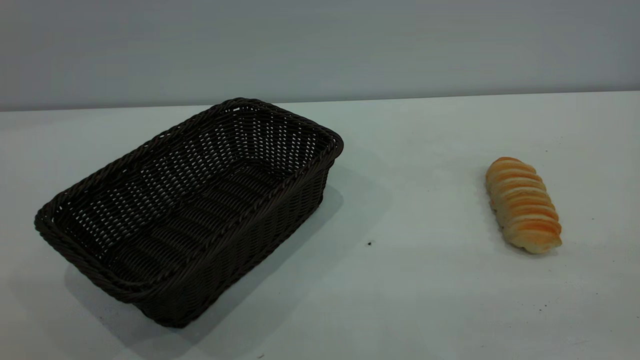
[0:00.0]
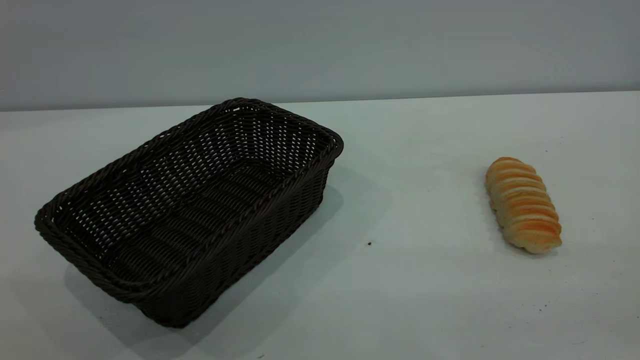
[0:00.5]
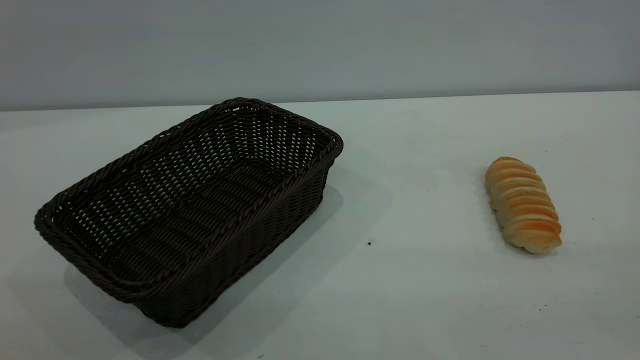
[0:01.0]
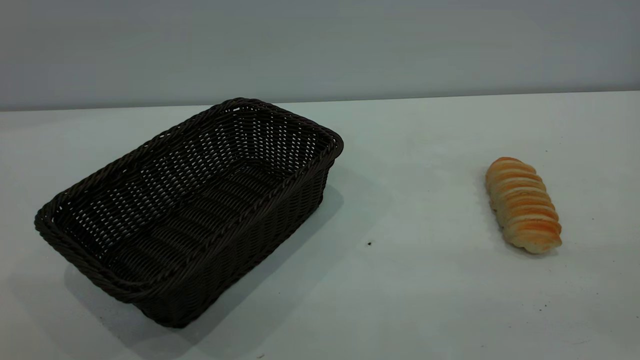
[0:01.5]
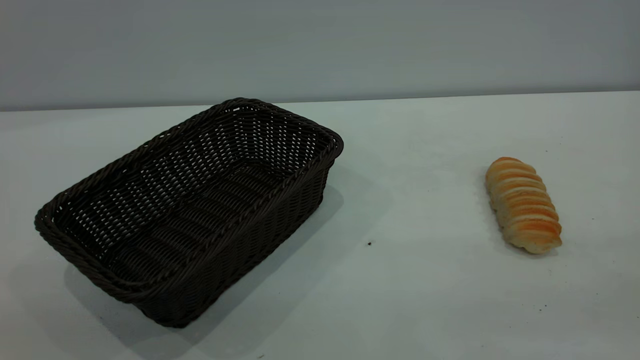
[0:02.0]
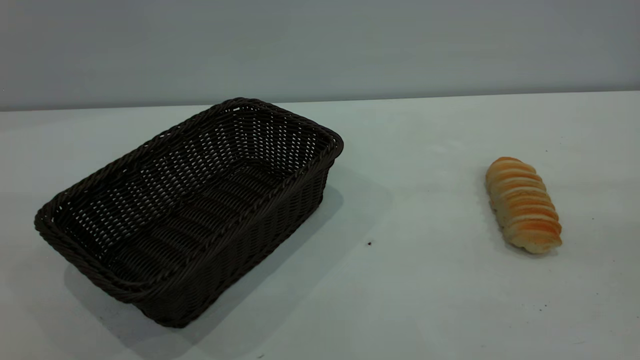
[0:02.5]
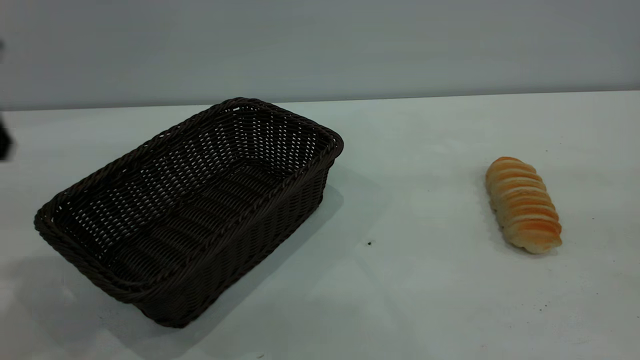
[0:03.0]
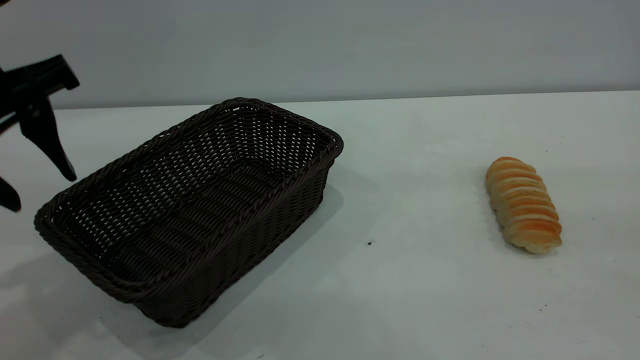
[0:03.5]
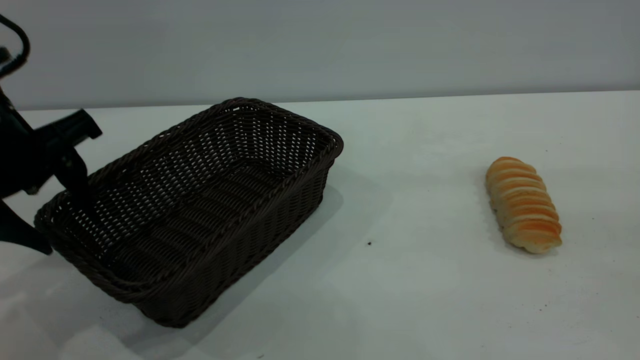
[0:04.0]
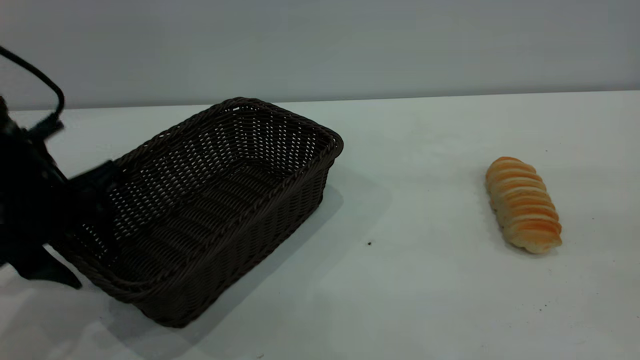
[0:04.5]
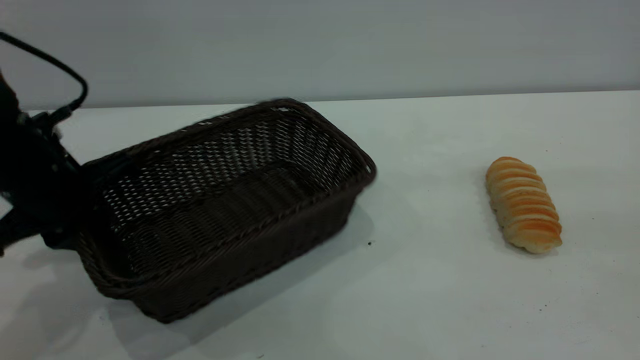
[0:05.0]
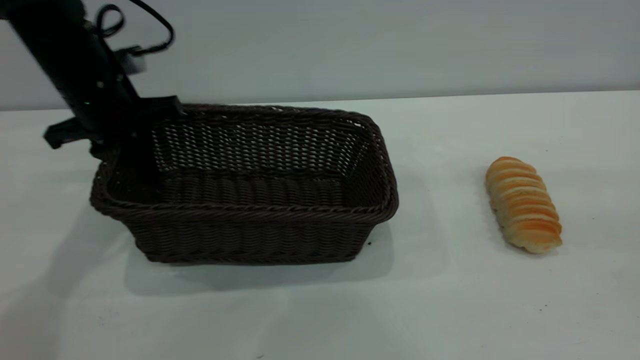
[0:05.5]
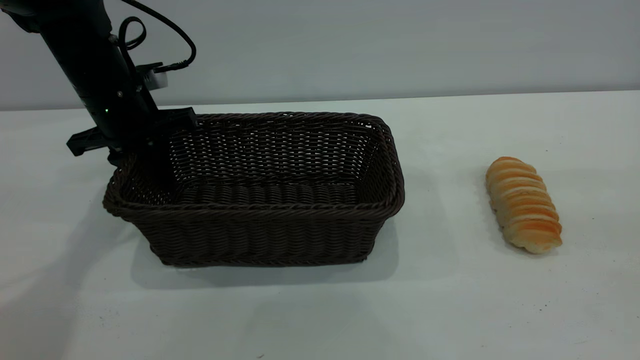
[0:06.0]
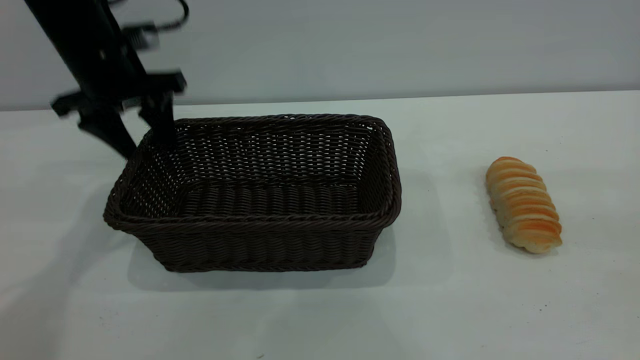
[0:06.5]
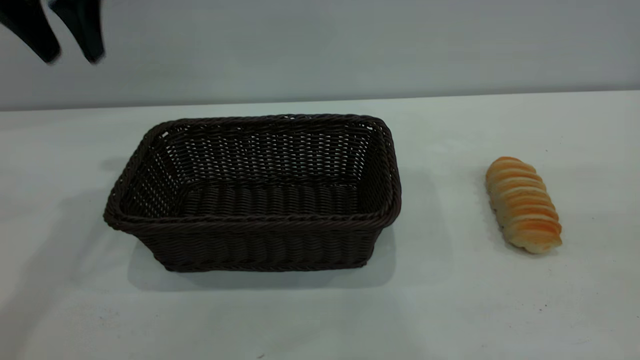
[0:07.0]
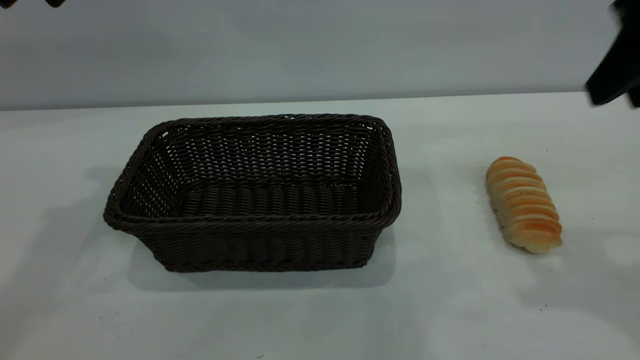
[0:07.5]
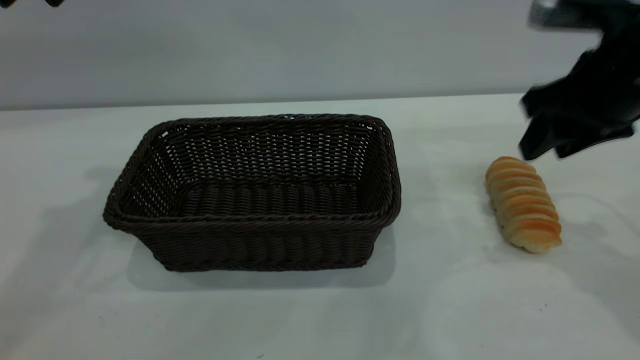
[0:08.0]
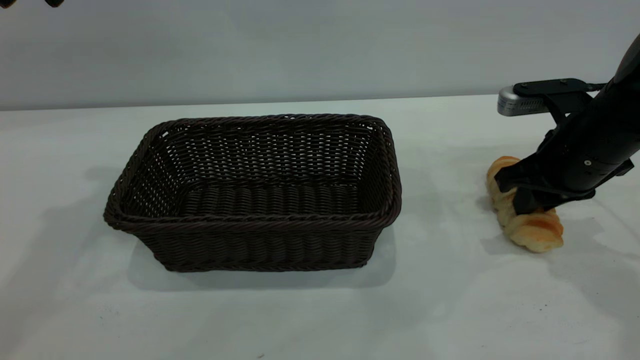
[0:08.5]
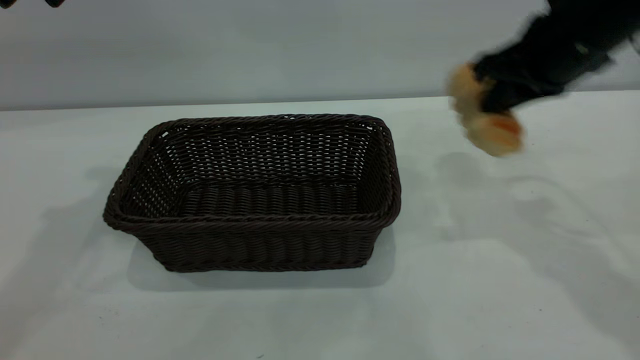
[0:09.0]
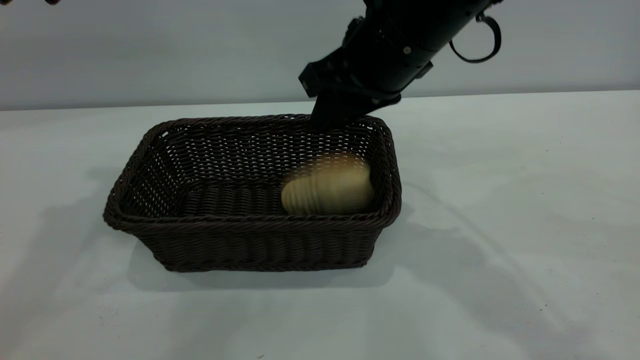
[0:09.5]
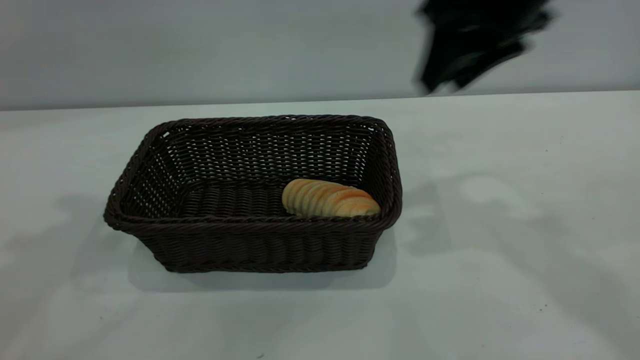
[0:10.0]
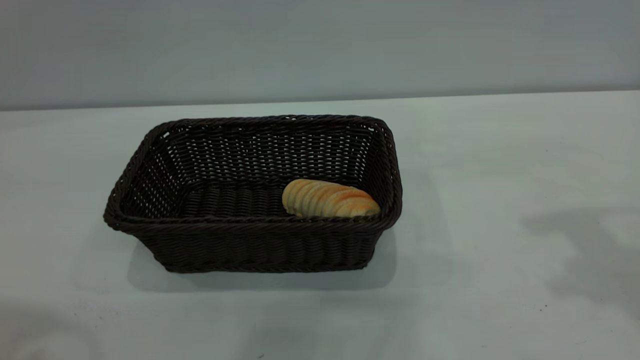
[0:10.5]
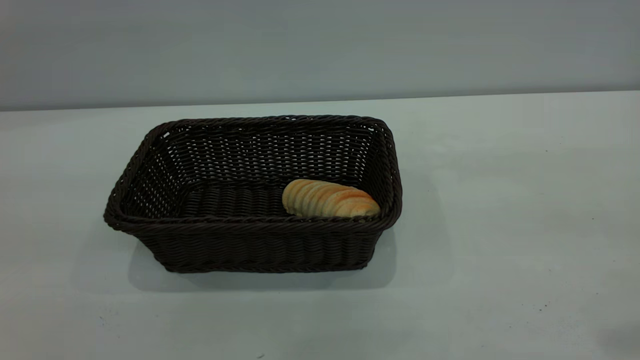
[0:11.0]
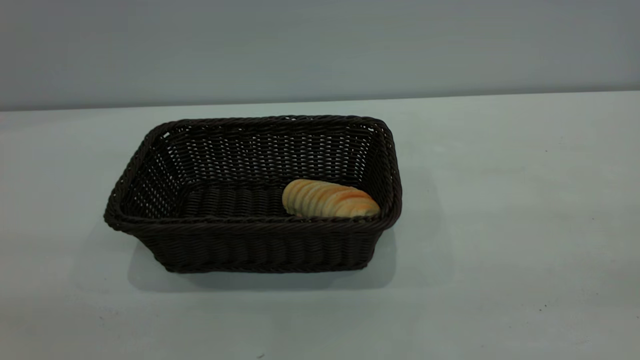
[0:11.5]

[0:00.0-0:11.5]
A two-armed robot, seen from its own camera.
Task of the whole recording: One hand grasps the black basket and places it in the middle of the table, while the other hand picks up the long bread and puts it into the black basket.
Step, 0:00.0 to 0:06.5: Move the basket to the center of view.
Step, 0:09.0 to 0:09.5: place the bread into the basket.
0:02.0 to 0:04.0: The left gripper is displaced forward and downward by about 35 cm.
0:04.0 to 0:06.0: The left gripper shifts approximately 15 cm forward, and closes its fingers.
0:06.0 to 0:07.5: The right gripper shifts about 15 cm forward; the left gripper is displaced upward by some 25 cm, and opens up.
0:07.5 to 0:09.5: The right gripper is displaced to the left and forward by about 20 cm, and closes, then opens again.
0:09.5 to 0:11.5: The right gripper goes about 40 cm backward and to the right. The left gripper heads backward, covering approximately 35 cm.

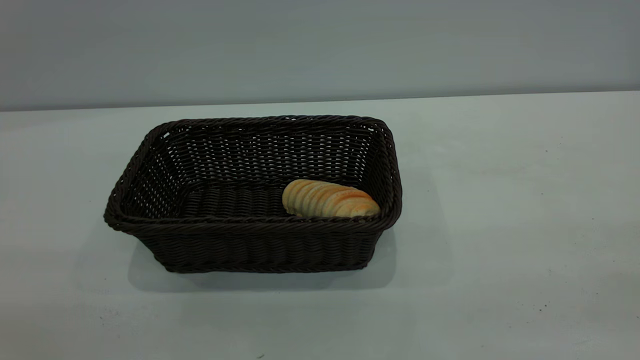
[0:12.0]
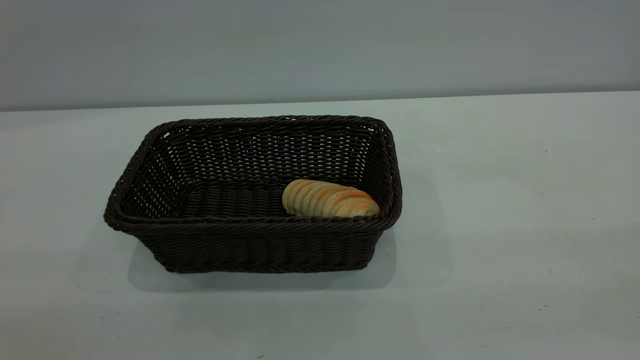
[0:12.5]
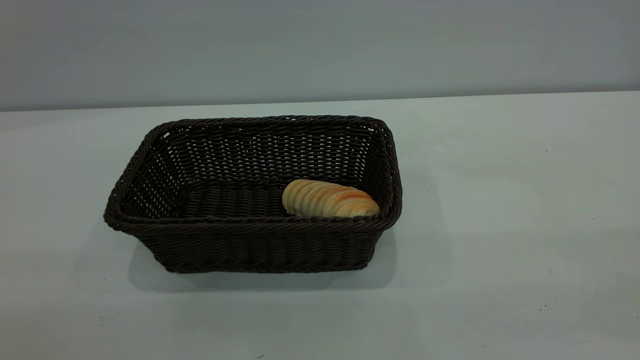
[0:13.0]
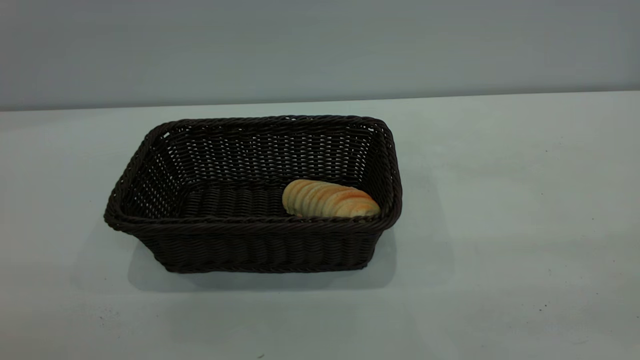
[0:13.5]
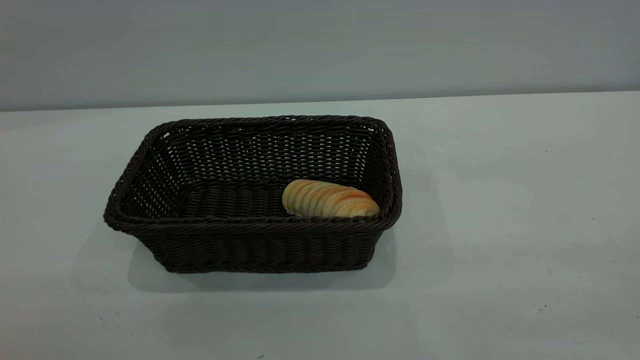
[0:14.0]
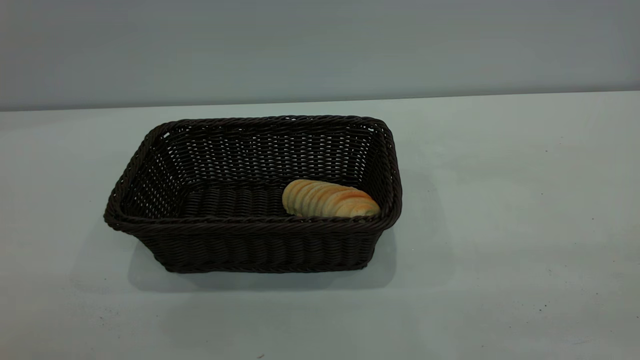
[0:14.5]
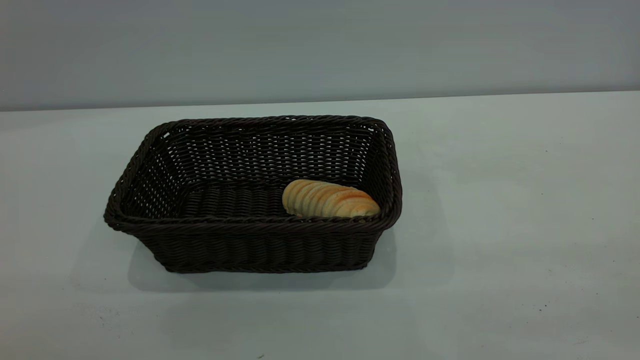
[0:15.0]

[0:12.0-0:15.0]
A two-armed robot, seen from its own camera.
Task of the whole recording: One hand grasps the black basket and places it in the middle of the table, while the other hand picks up the long bread and puts it into the black basket.
0:13.5 to 0:15.0: The two grippers keep their place.
